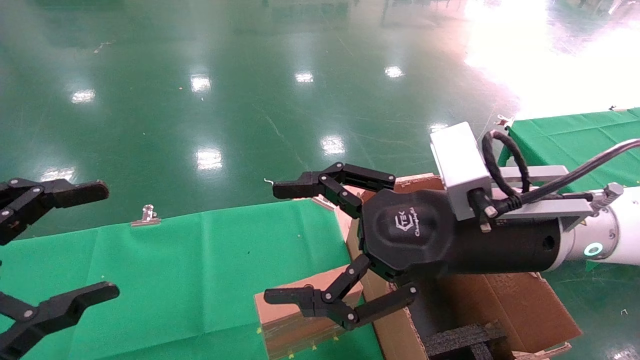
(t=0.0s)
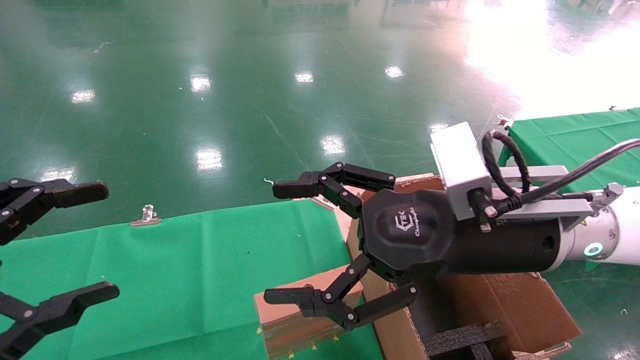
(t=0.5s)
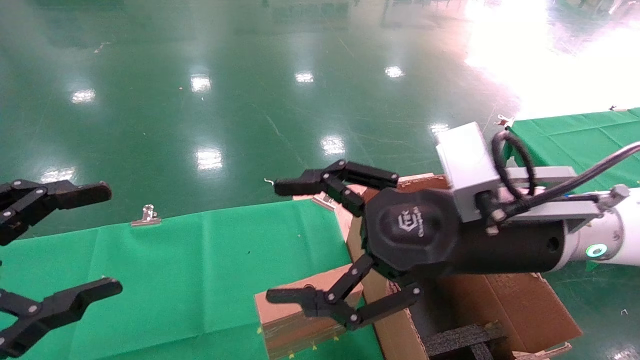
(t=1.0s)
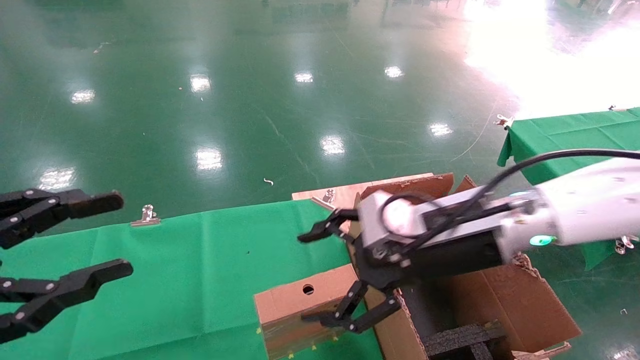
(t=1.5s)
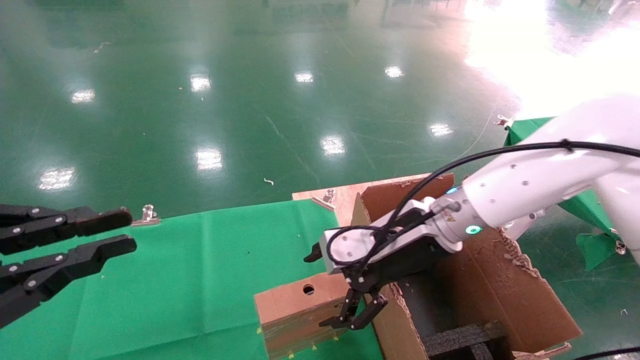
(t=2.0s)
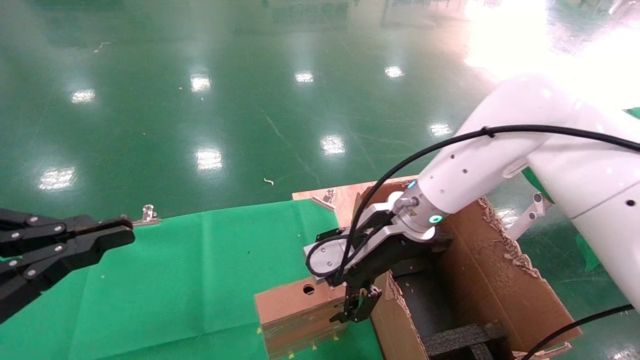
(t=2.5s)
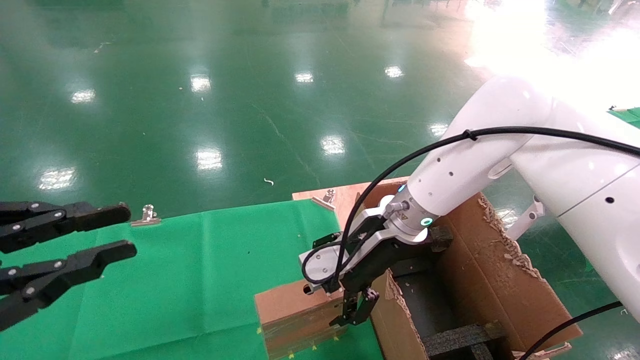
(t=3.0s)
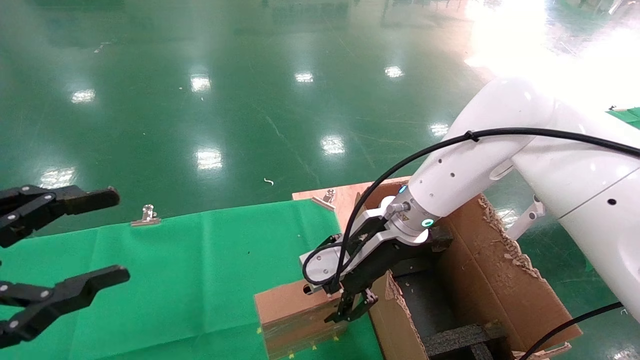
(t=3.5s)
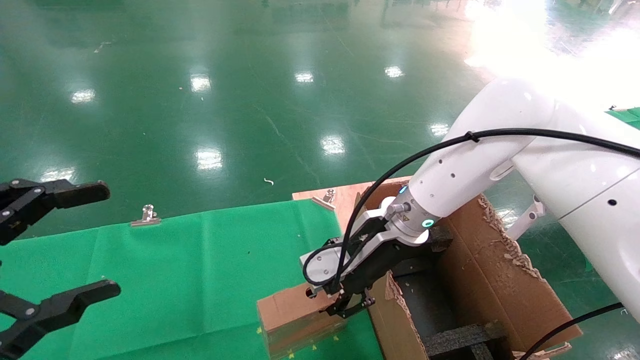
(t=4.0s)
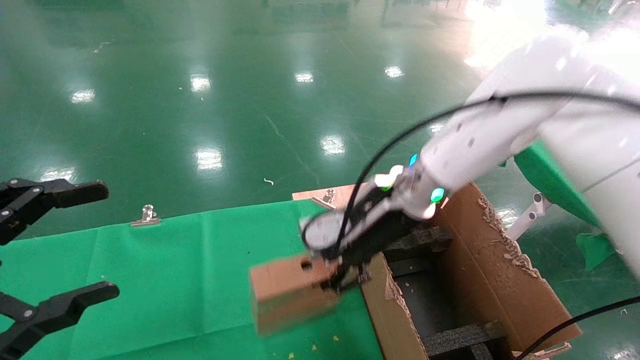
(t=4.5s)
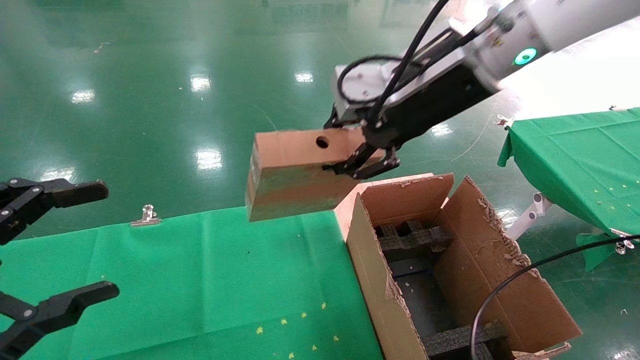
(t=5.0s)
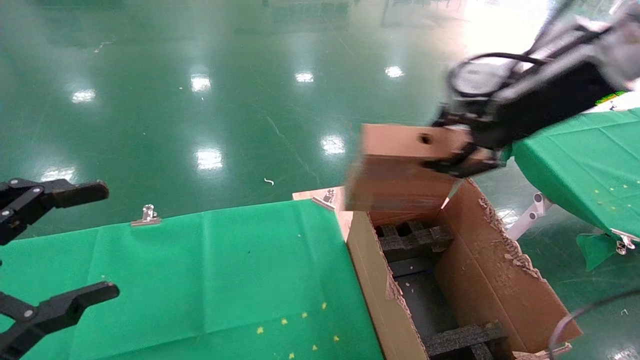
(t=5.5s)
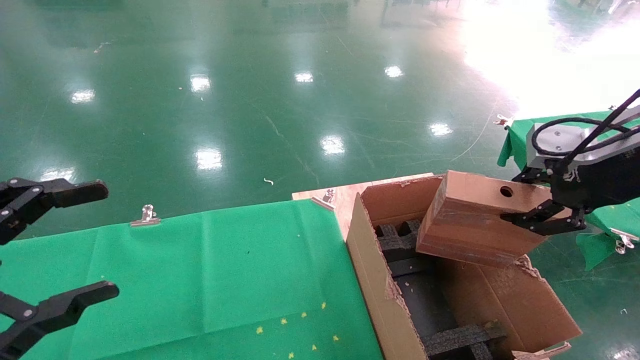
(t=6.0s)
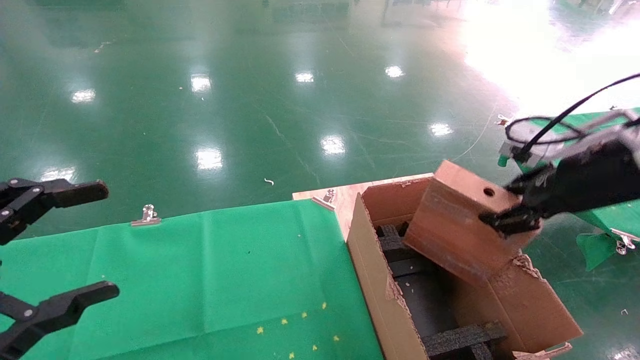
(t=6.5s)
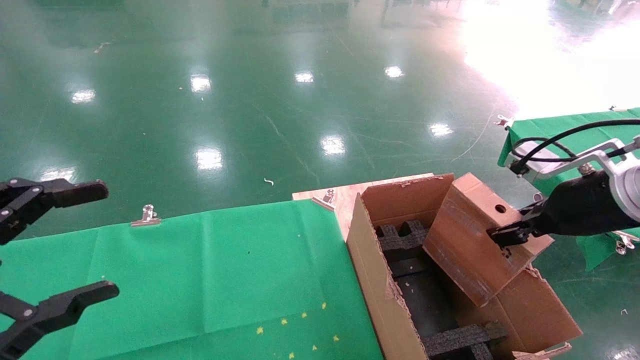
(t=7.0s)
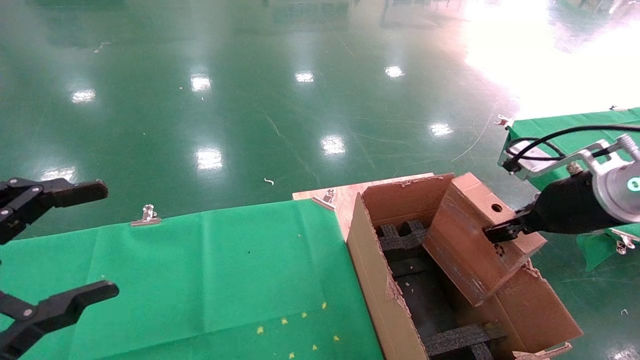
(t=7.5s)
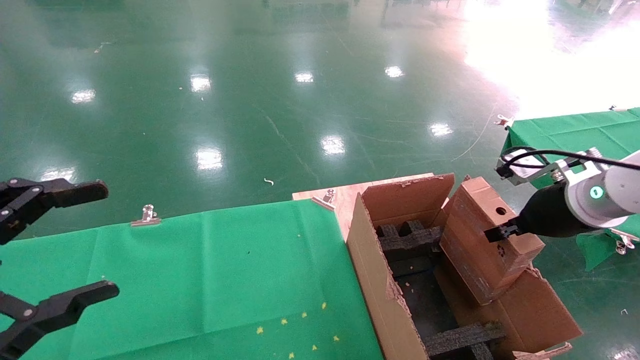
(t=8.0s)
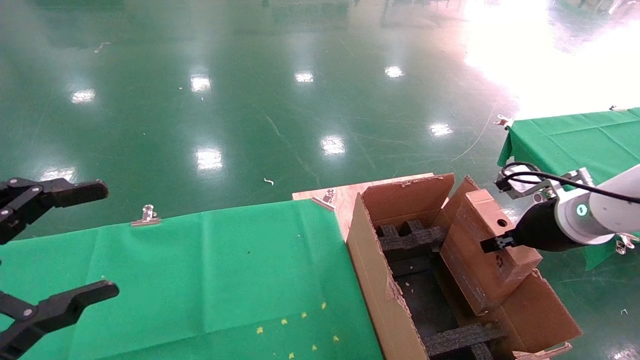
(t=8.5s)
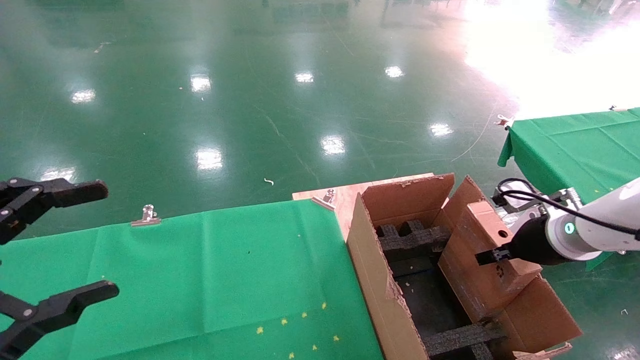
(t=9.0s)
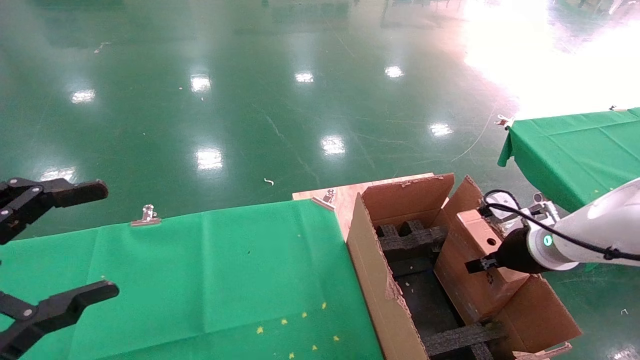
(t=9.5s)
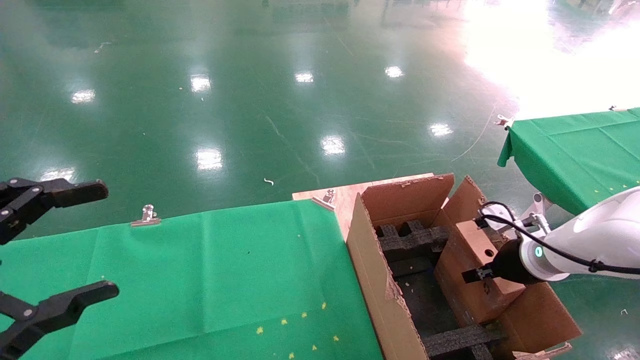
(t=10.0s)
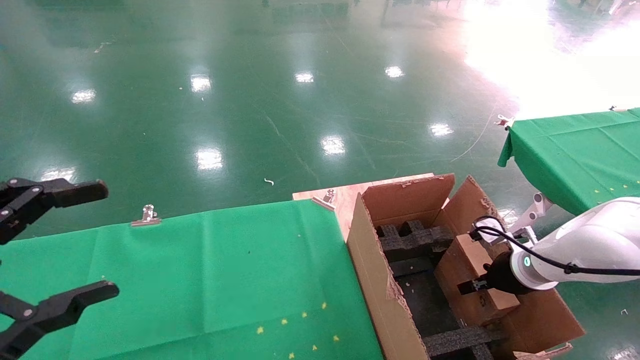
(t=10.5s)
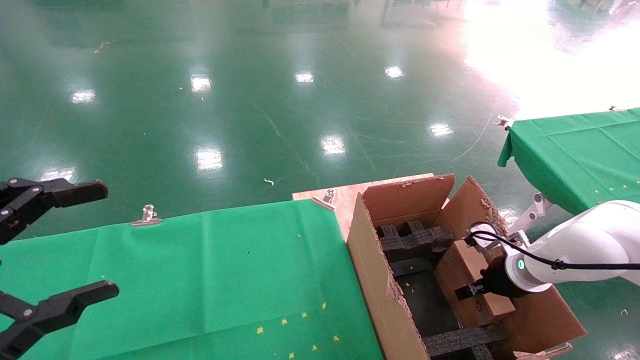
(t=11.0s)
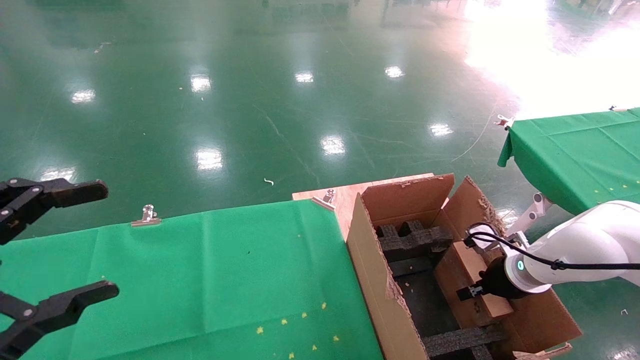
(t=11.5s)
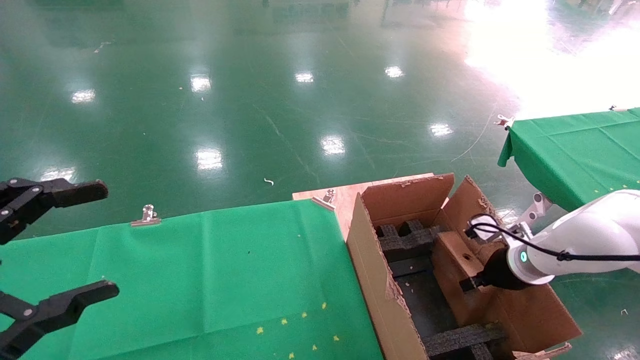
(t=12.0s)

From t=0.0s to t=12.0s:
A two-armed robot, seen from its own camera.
Task of the whole recording: using a robotic arm to pick up a cardboard box and palace it the carton.
Step, from t=1.5s to t=3.5s: Pick up the mouse and the power cord paper box.
From t=0.0s to t=2.0s: The left gripper closes its fingers; the right gripper moves forward, approximately 10 cm.
From t=2.0s to t=4.0s: The right gripper closes. The left gripper opens.
From t=4.0s to t=6.0s: The right gripper goes roughly 30 cm to the right, upward and backward.
From t=6.0s to t=8.0s: The right gripper goes roughly 15 cm downward and forward.
From t=8.0s to t=10.0s: The right gripper heads downward, covering some 10 cm.
From t=10.0s to t=12.0s: The right gripper opens.

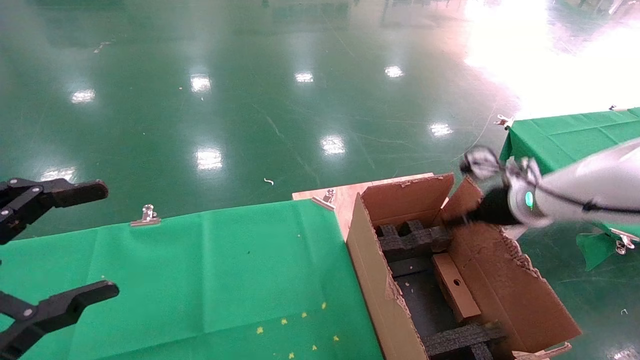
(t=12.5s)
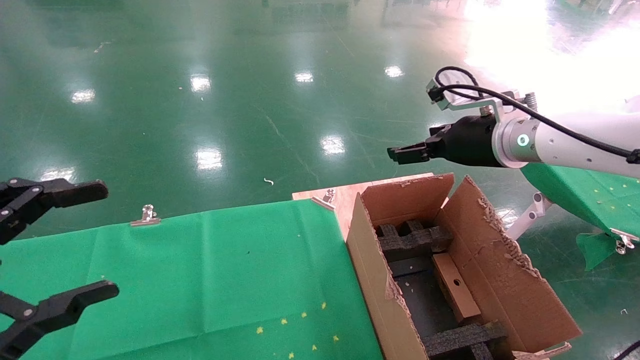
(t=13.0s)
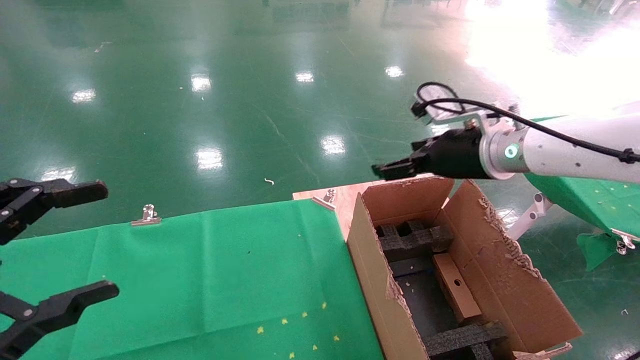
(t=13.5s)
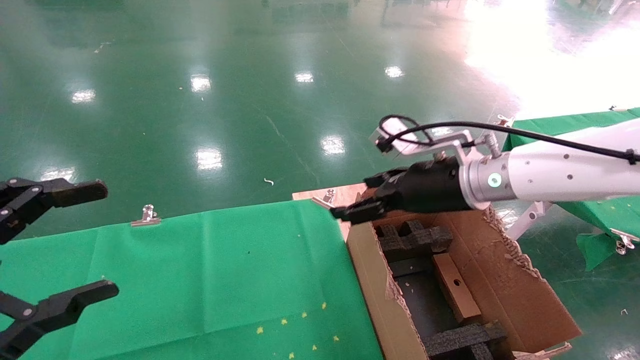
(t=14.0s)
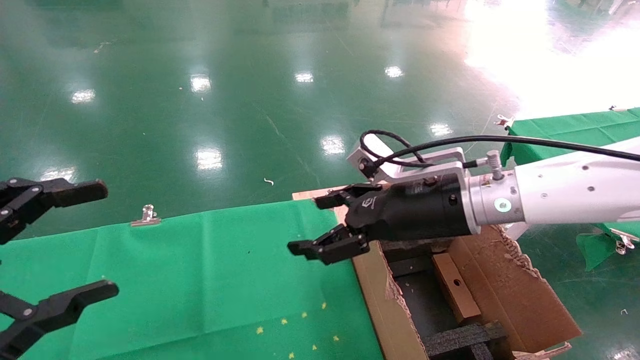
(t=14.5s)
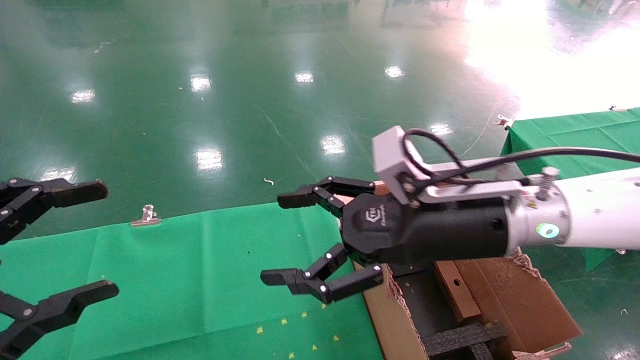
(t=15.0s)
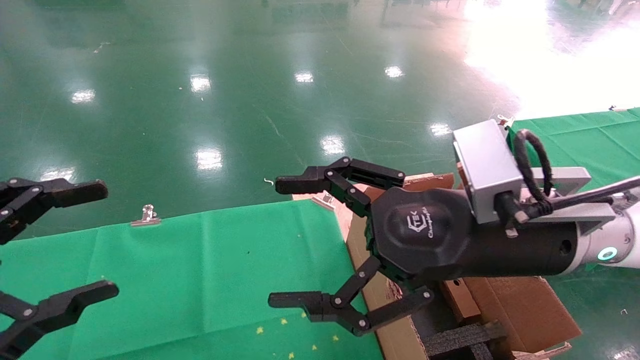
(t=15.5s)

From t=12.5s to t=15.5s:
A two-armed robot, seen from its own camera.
Task of the whole recording: using a robotic arm to pick up a cardboard box and palace it the carton.
From t=12.5s to t=14.0s: The right gripper heads to the left, covering roughly 10 cm.
From t=14.0s to t=15.5s: The right gripper is displaced backward by roughly 15 cm.

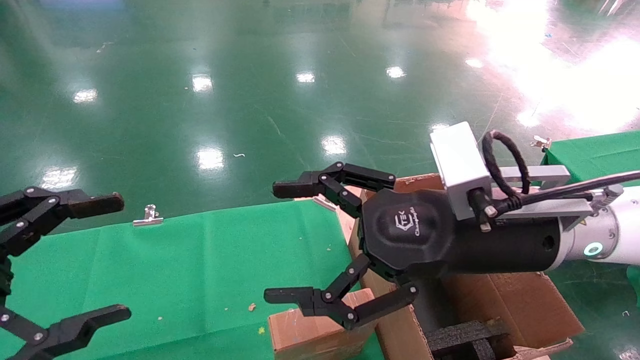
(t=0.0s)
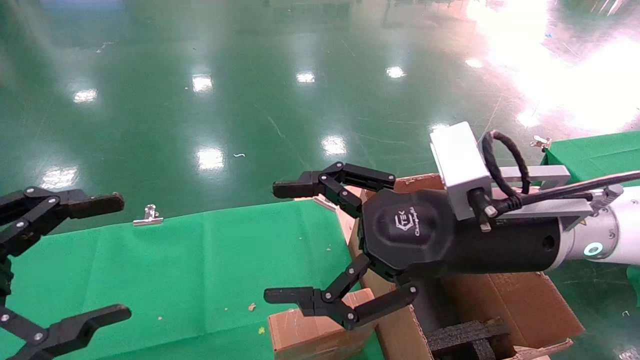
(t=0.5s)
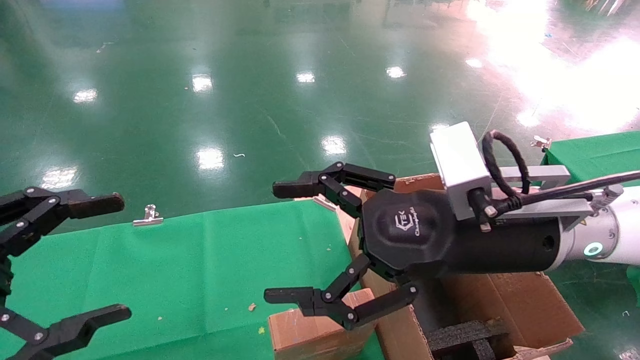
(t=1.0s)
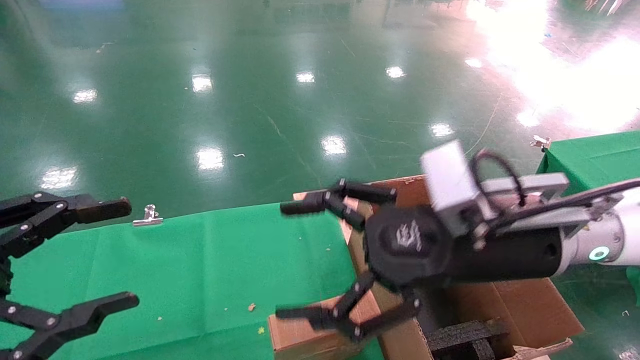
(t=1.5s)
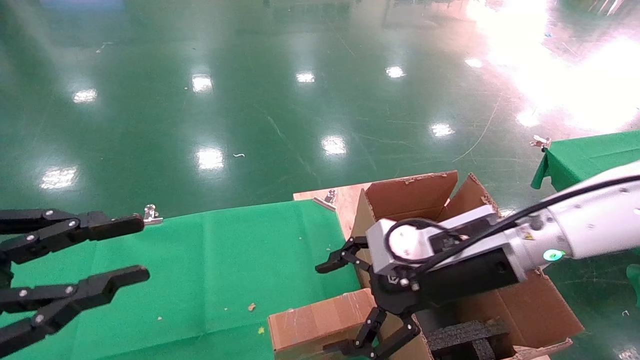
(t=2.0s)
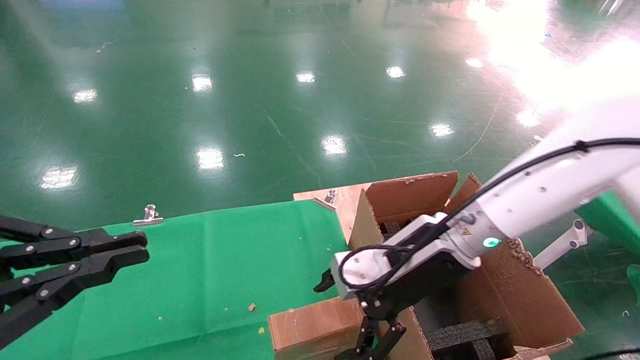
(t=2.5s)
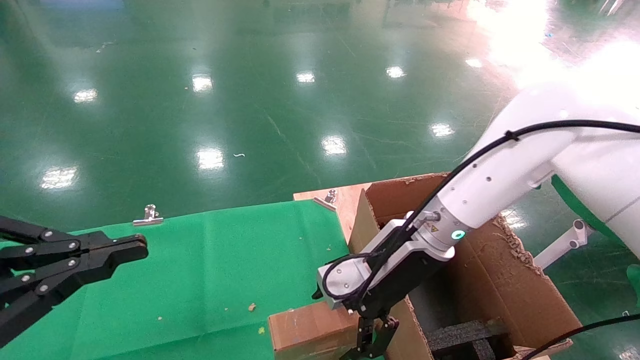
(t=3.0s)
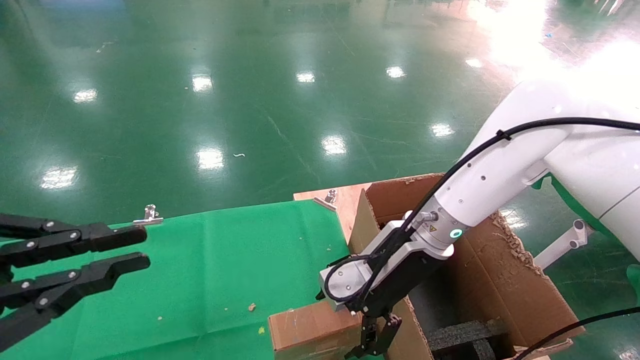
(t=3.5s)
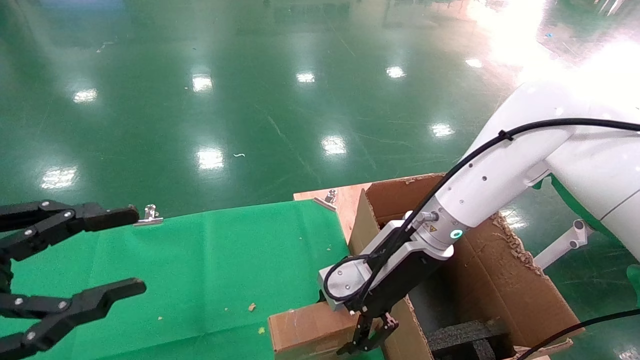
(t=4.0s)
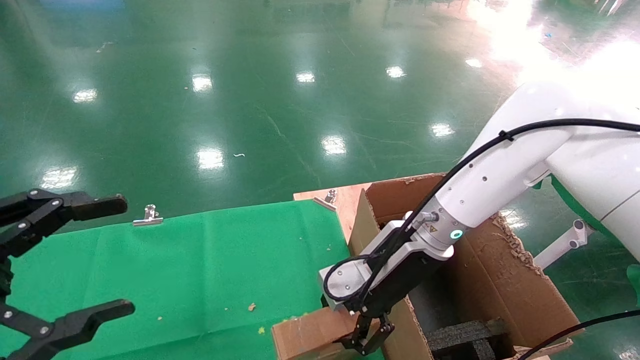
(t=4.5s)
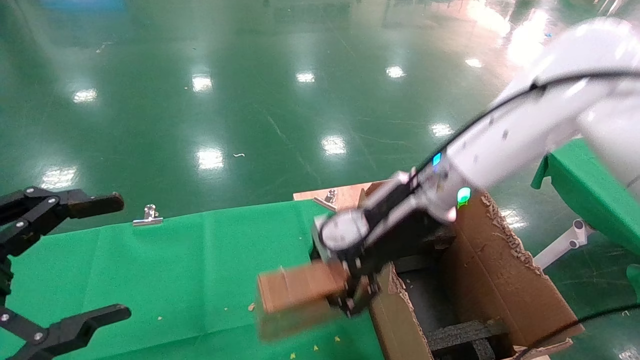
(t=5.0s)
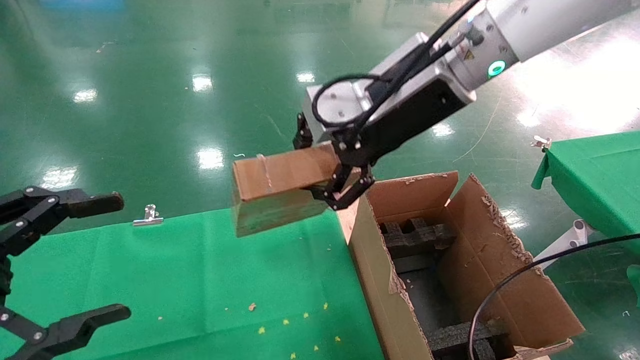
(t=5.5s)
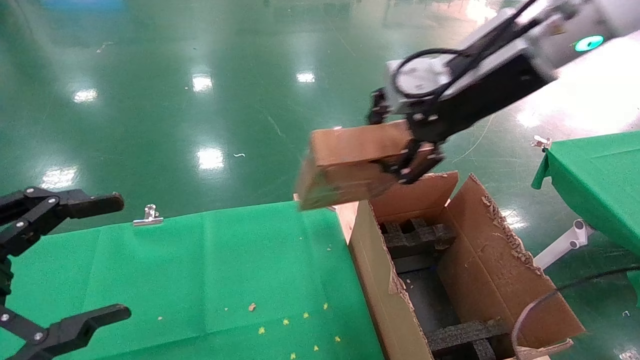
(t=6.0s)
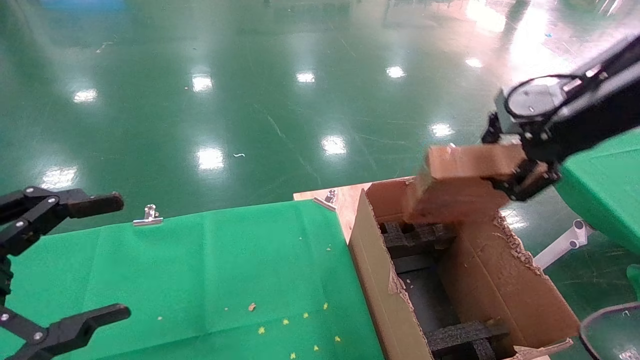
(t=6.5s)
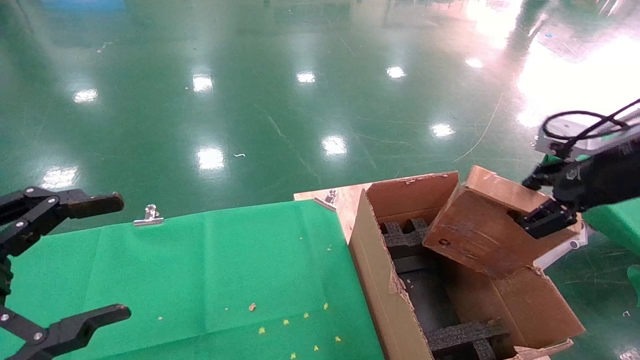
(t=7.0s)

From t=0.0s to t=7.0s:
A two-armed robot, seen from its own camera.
Task of the whole recording: using a robotic arm to pick up a cardboard box and palace it the carton.
Step, from t=1.5s to t=4.0s: Pick up the mouse and the power cord paper box.
From t=0.0s to t=2.0s: The left gripper closes up. Meanwhile the right gripper moves roughly 5 cm.
From t=2.0s to t=3.5s: The right gripper is displaced forward by approximately 5 cm.
From t=3.5s to t=5.0s: The left gripper opens; the right gripper shifts about 5 cm upward, and closes its fingers.
From t=5.0s to t=7.0s: The right gripper travels to the right by about 25 cm.
